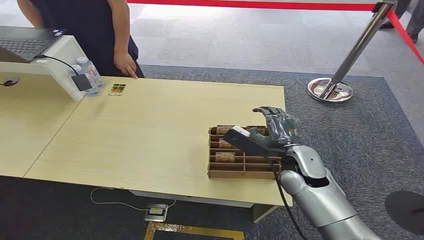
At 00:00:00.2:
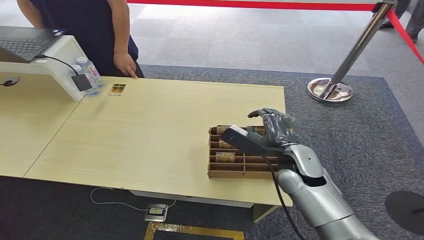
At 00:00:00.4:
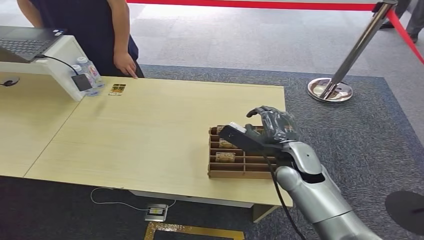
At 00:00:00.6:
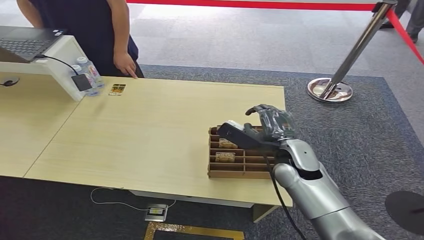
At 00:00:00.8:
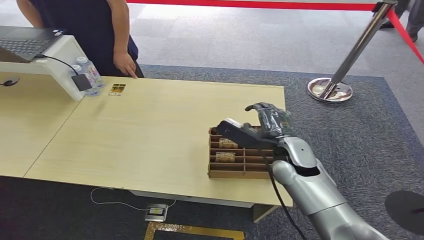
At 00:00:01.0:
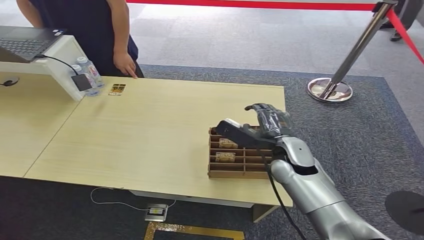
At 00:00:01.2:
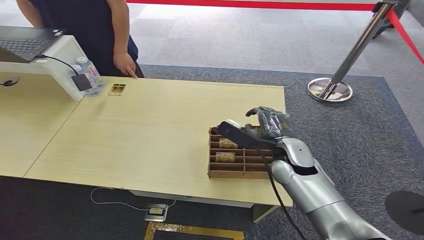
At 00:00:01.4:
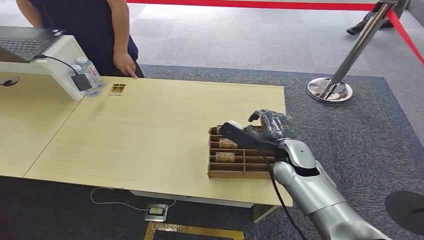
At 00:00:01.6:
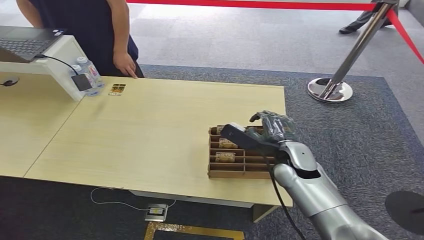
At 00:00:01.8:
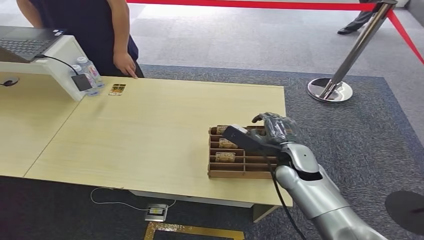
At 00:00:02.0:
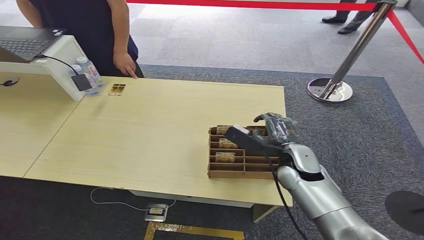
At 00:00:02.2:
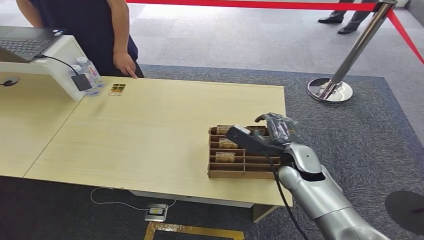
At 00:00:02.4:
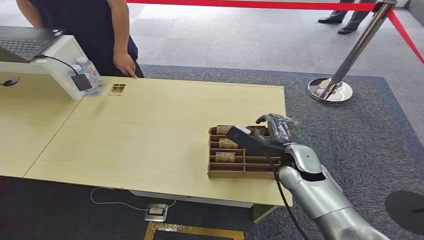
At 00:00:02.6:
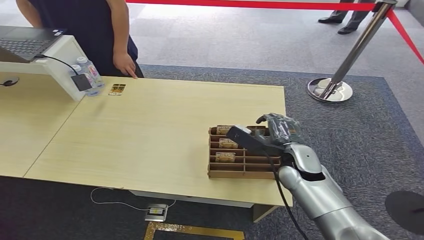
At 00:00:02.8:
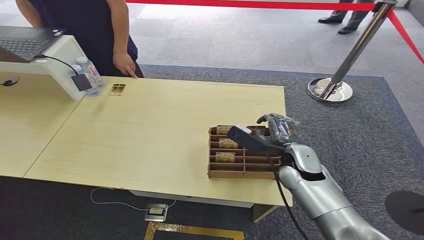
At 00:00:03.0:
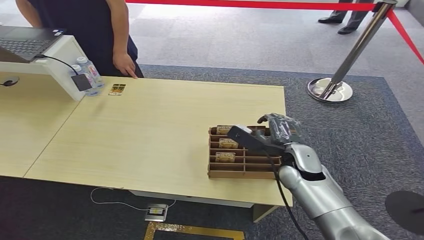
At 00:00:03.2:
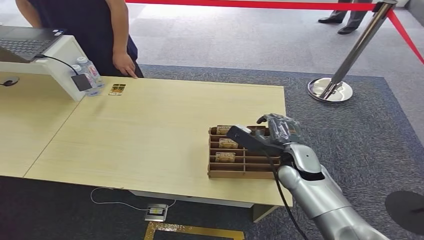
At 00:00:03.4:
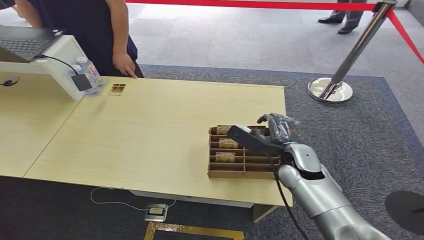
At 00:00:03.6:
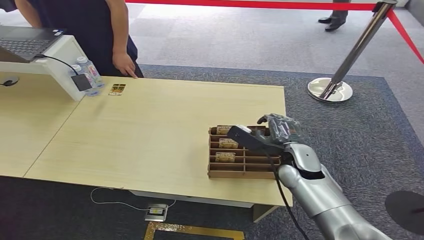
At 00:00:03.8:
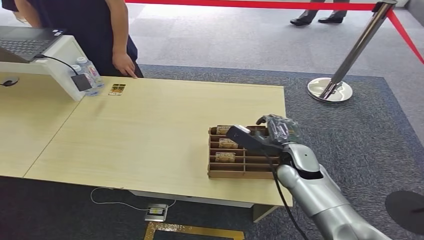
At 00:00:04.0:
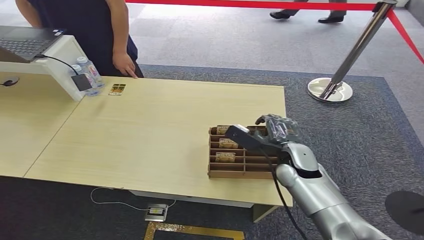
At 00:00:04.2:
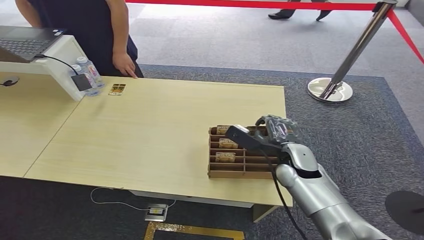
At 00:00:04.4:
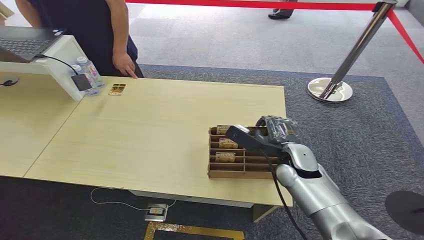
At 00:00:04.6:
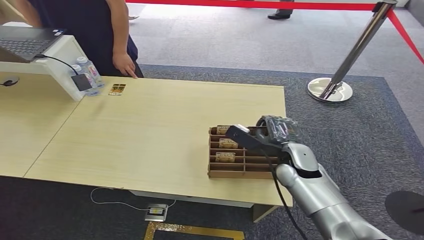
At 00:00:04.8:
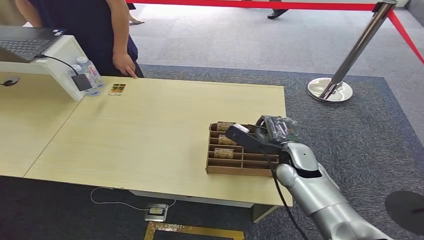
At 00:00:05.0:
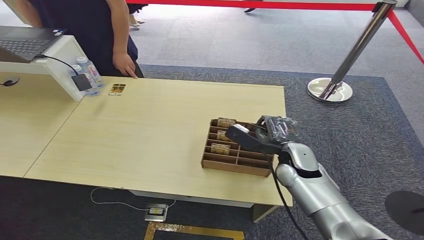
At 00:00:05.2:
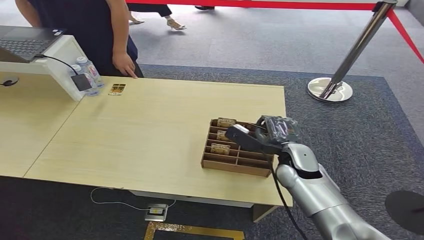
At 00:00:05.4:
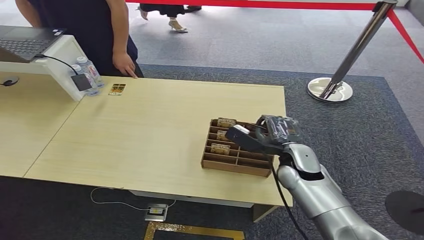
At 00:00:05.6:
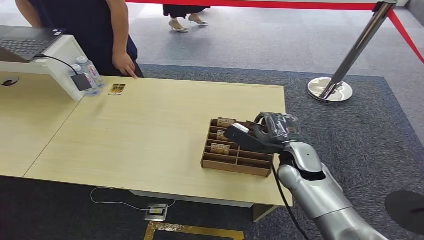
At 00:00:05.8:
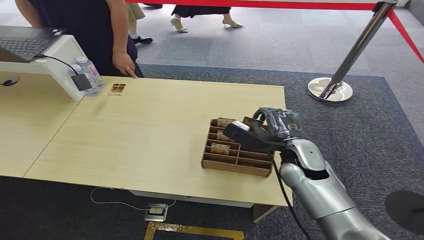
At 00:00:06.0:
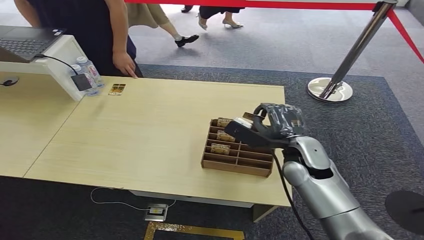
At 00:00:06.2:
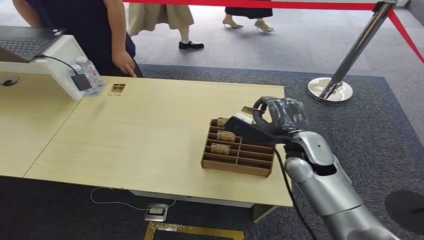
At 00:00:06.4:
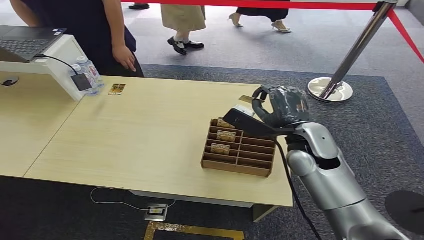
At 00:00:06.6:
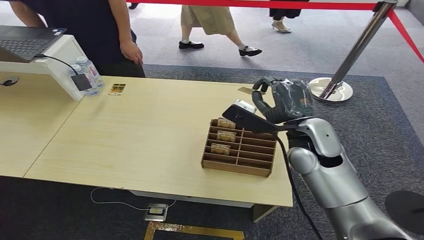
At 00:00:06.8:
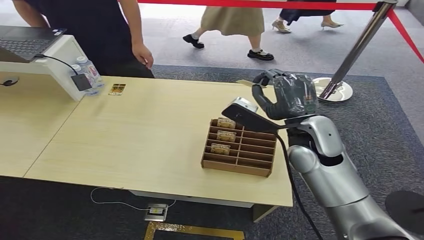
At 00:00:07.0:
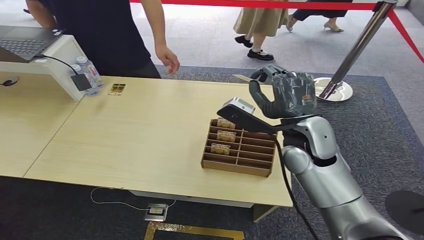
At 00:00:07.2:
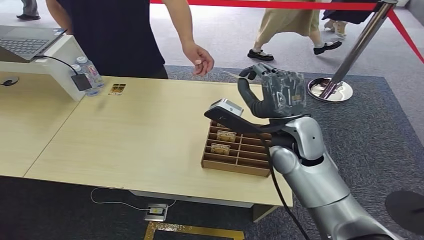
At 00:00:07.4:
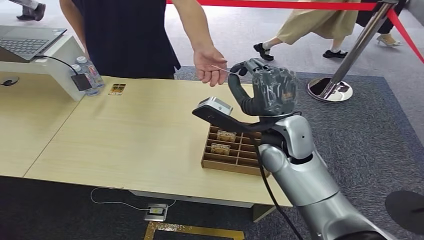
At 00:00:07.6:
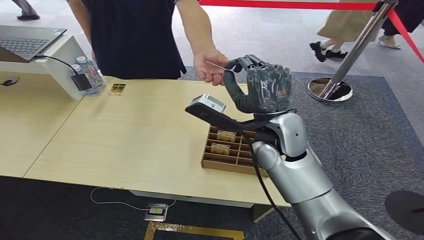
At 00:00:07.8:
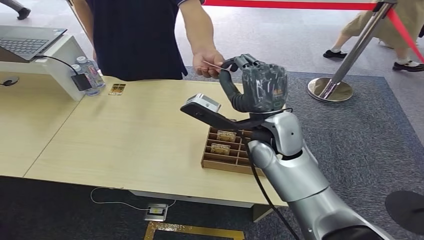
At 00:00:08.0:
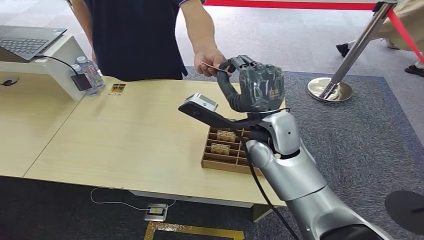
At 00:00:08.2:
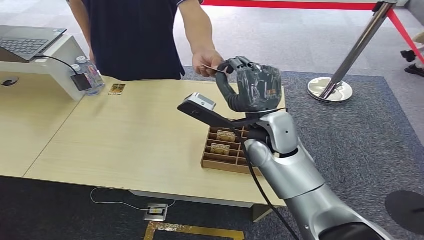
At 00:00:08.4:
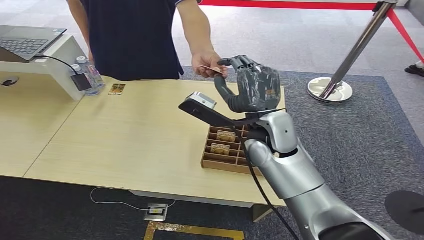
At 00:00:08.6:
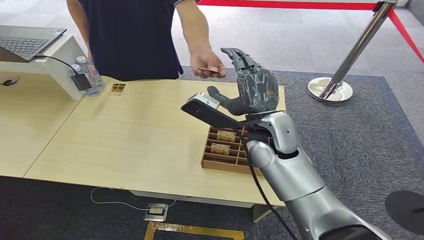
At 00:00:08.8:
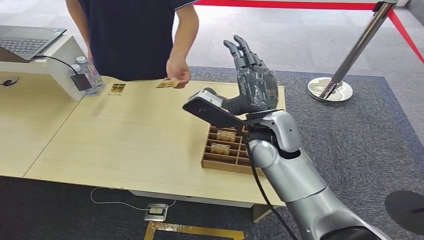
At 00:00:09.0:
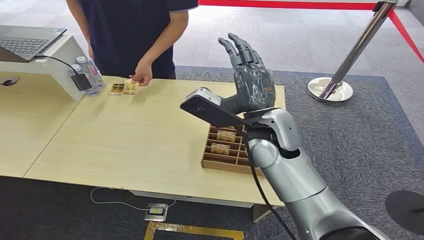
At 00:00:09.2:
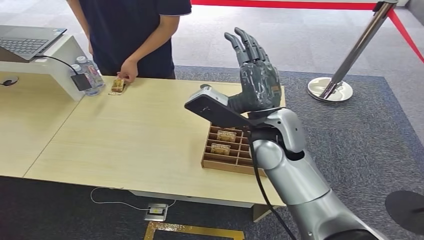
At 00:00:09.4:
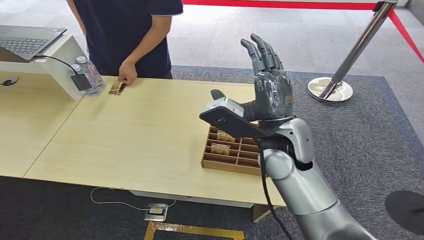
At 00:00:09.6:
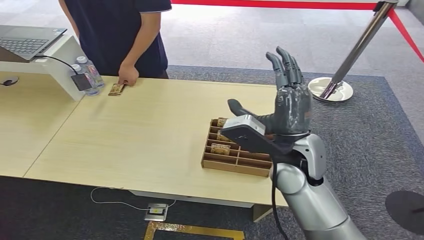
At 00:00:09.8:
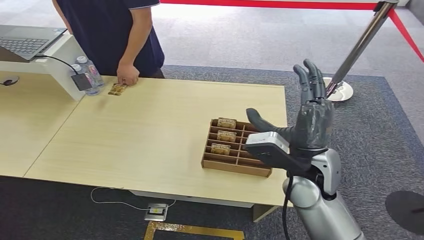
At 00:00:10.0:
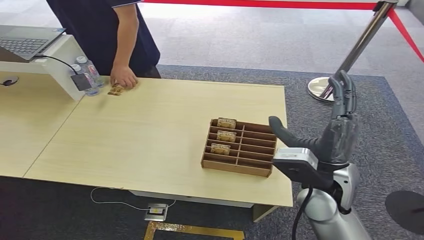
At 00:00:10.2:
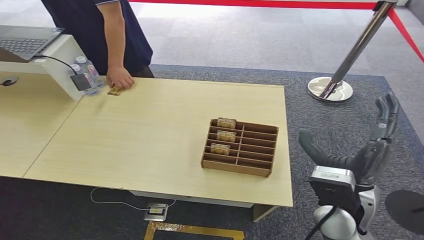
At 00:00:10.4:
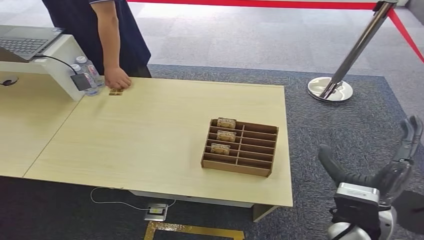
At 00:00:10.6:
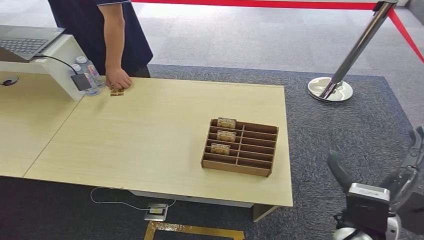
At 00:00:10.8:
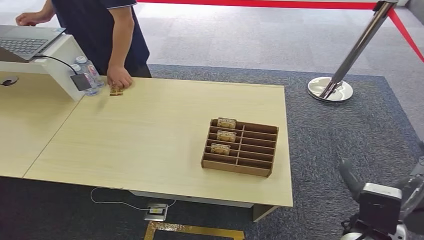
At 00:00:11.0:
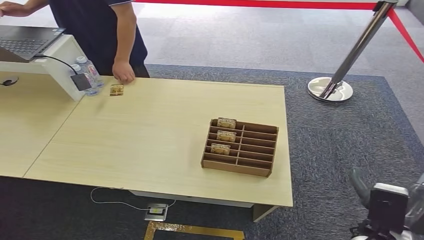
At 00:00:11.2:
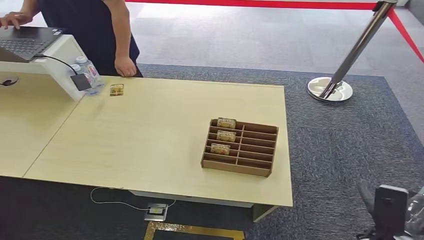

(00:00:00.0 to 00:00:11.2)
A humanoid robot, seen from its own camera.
Step, 00:00:00.0 - 00:00:06.0: Pick up the room card from the card holder.
Step, 00:00:06.4 - 00:00:11.0: Hand the room card to the target.
00:00:01.6 - 00:00:03.2: The hands stay close to where they were, moving slightly.
00:00:03.2 - 00:00:04.8: Neither hand changes place.
00:00:04.8 - 00:00:06.4: The right hand goes roughly 10 cm upward.
00:00:09.6 - 00:00:11.2: The right hand heads to the right, downward and backward, covering some 30 cm.

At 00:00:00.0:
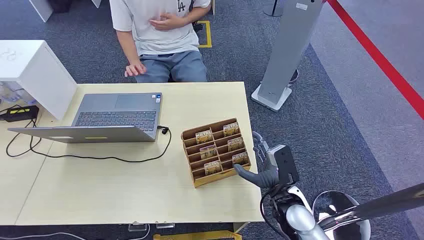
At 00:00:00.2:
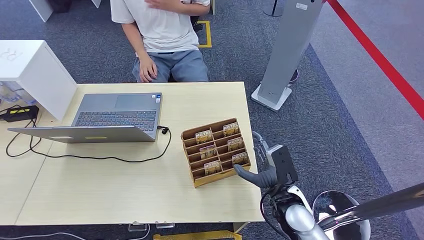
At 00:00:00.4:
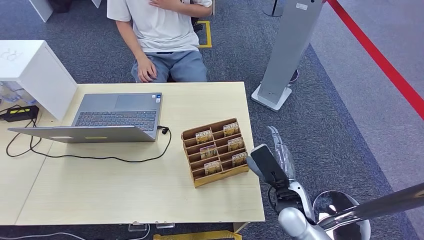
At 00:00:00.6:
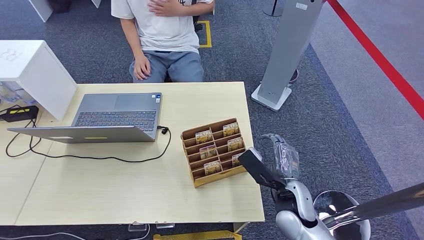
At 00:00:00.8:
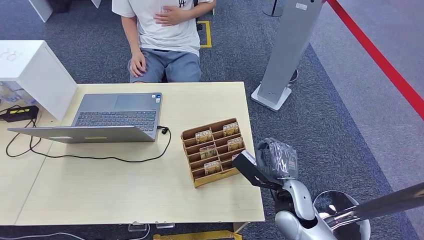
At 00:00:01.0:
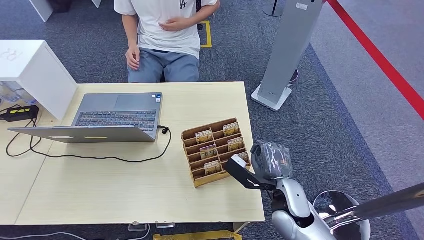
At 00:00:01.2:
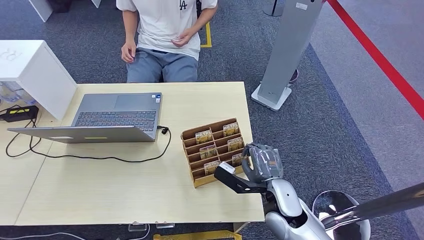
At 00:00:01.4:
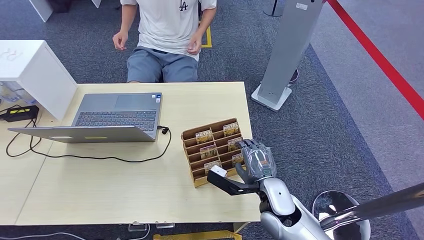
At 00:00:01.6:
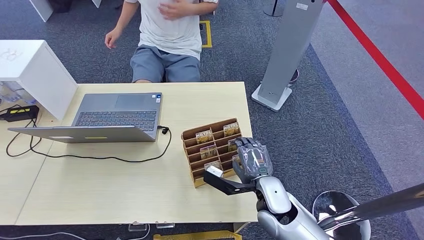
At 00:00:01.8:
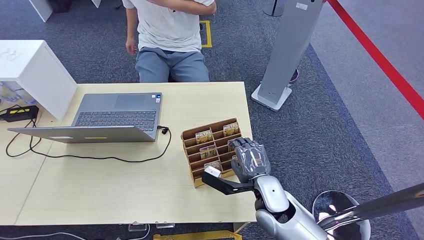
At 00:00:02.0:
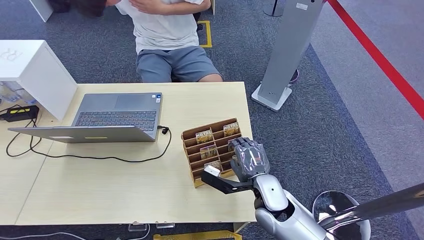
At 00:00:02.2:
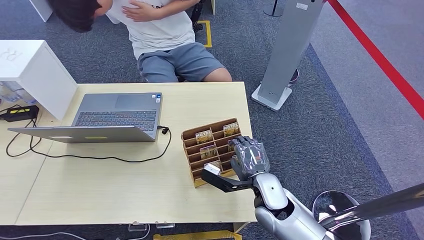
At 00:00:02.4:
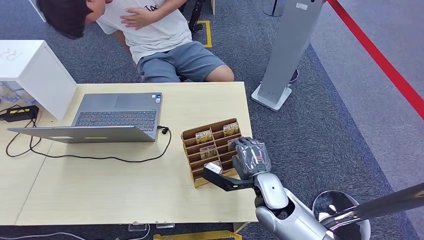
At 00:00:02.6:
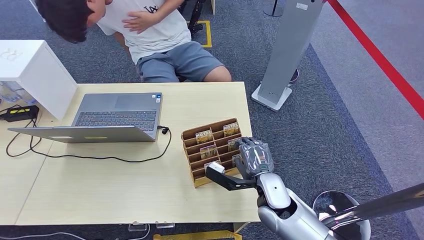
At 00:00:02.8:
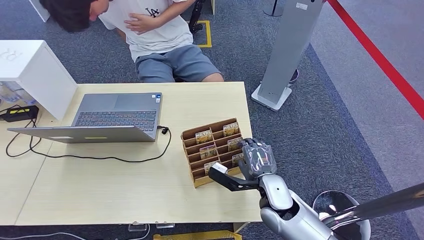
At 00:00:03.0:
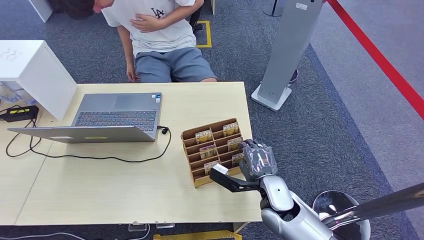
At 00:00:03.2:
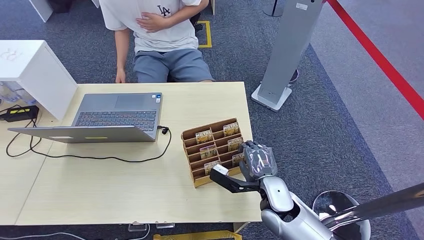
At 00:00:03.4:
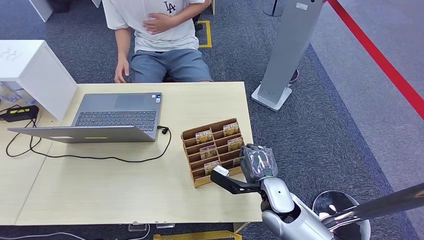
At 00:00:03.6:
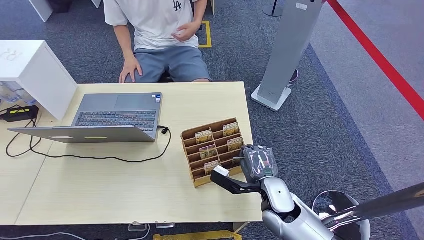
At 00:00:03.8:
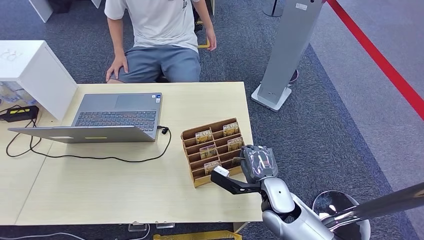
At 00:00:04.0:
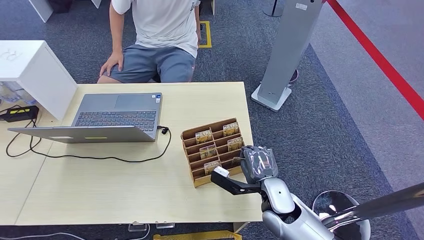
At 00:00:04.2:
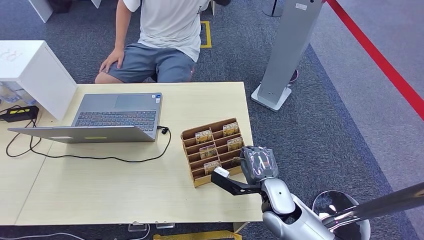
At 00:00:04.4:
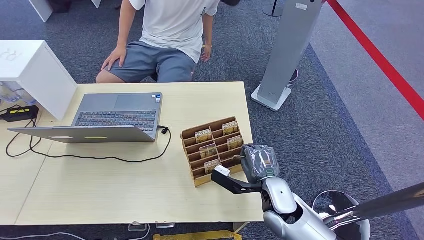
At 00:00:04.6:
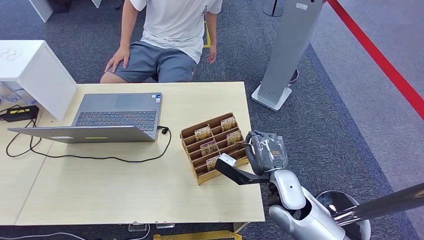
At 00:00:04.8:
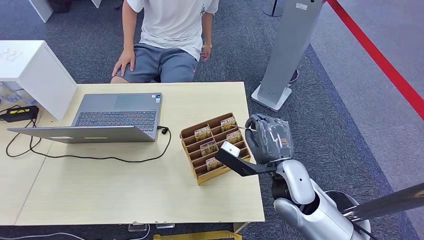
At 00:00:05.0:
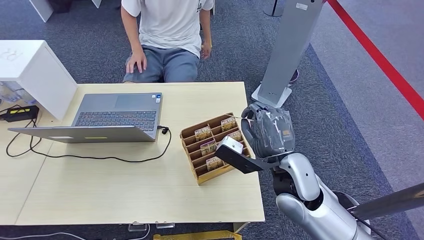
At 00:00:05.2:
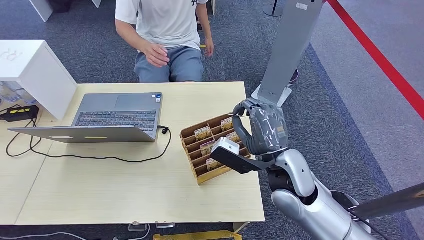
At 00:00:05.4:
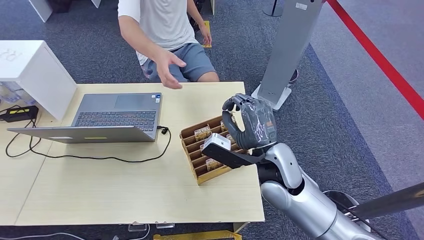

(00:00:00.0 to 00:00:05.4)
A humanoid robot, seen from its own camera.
Step, 00:00:00.0 - 00:00:05.0: Pick up the room card from the card holder.
00:00:01.4 - 00:00:02.8: The hands stay close to where they were, moving slightly.
00:00:02.8 - 00:00:04.0: Both hands stay put.
00:00:04.0 - 00:00:05.4: The right hand heads upward, covering some 15 cm.
